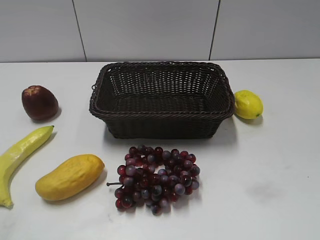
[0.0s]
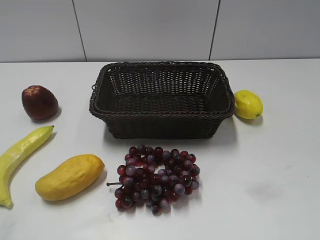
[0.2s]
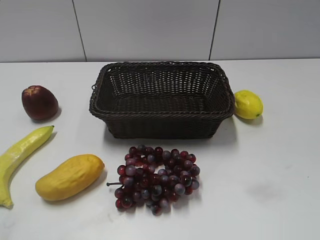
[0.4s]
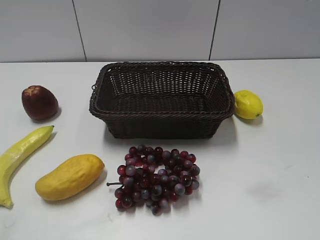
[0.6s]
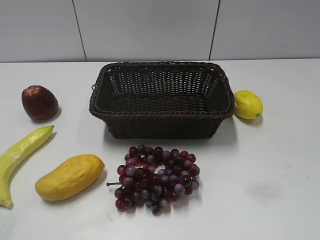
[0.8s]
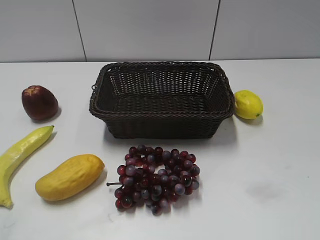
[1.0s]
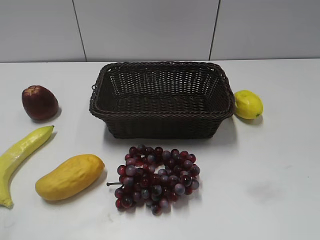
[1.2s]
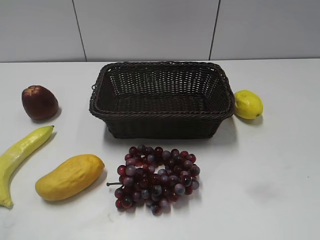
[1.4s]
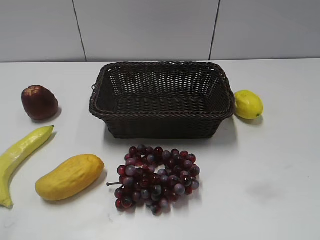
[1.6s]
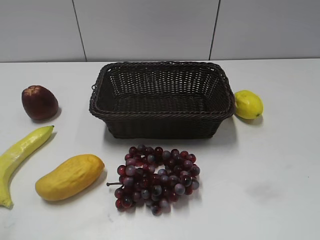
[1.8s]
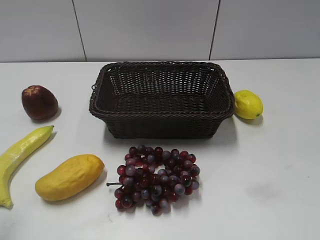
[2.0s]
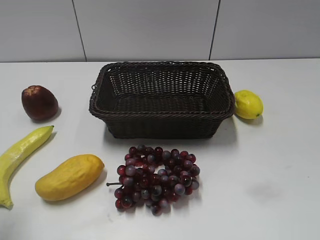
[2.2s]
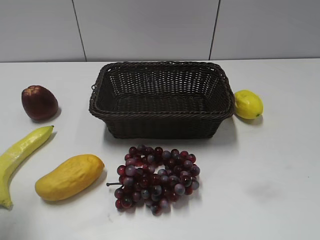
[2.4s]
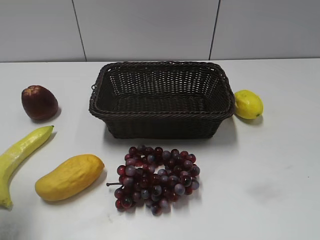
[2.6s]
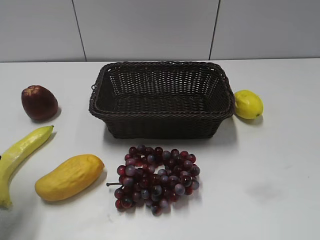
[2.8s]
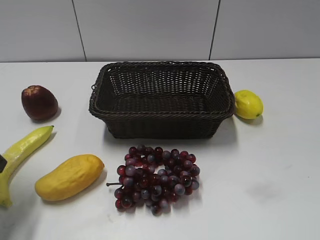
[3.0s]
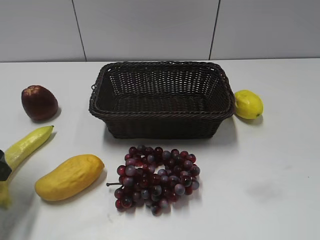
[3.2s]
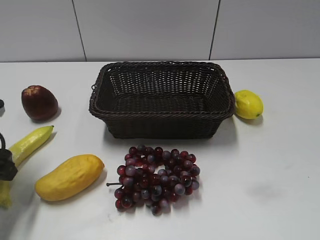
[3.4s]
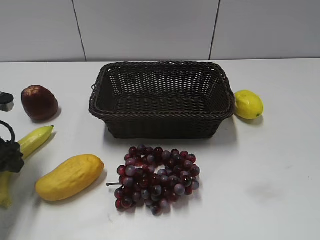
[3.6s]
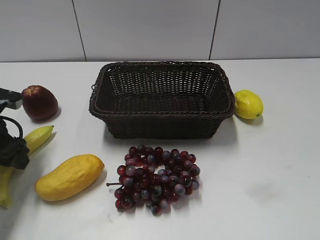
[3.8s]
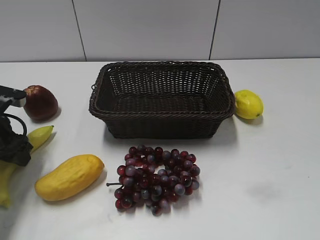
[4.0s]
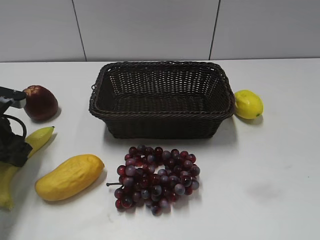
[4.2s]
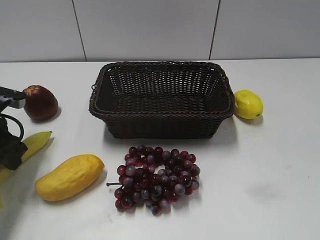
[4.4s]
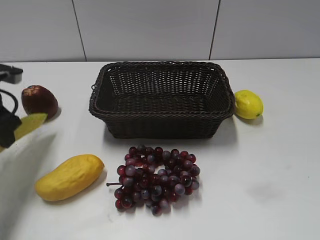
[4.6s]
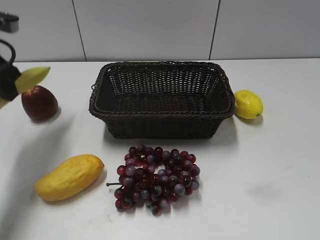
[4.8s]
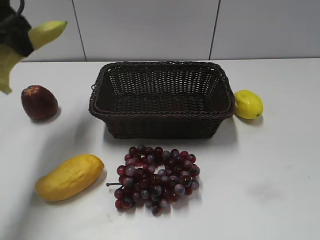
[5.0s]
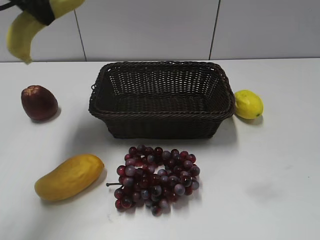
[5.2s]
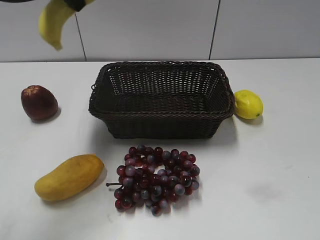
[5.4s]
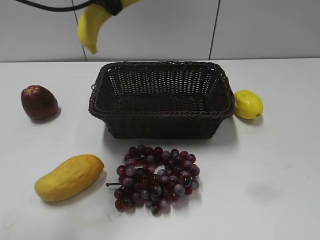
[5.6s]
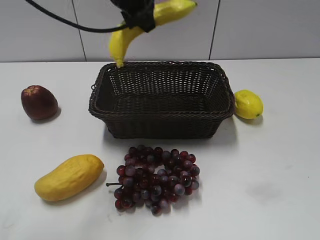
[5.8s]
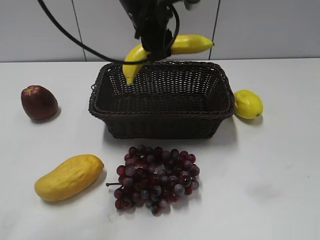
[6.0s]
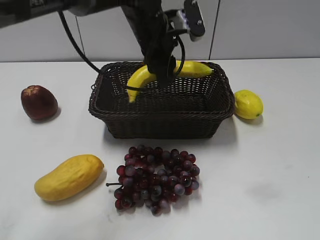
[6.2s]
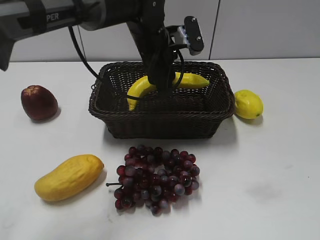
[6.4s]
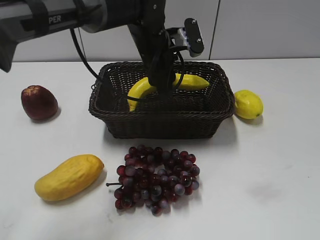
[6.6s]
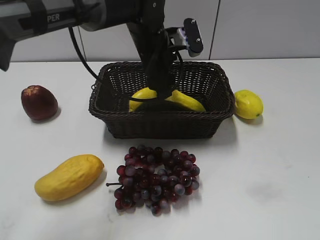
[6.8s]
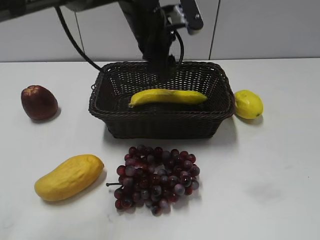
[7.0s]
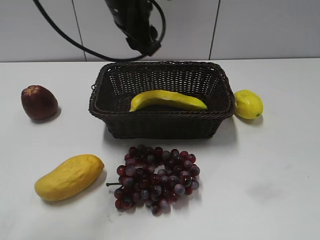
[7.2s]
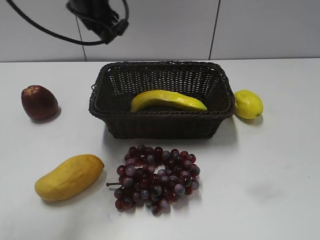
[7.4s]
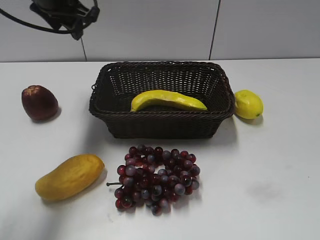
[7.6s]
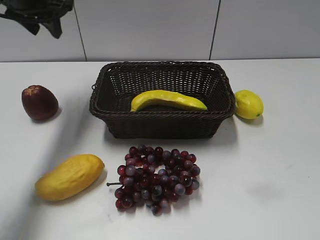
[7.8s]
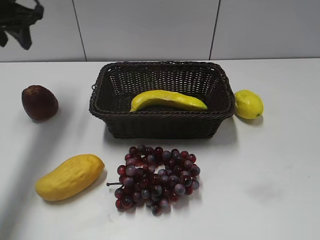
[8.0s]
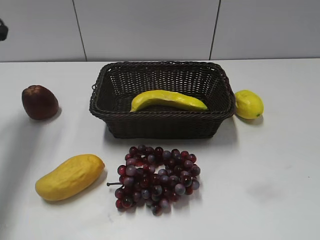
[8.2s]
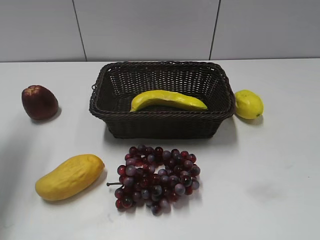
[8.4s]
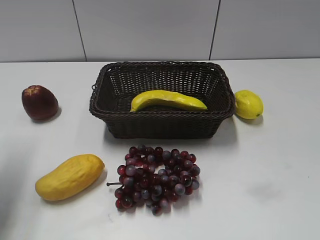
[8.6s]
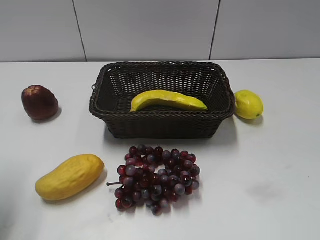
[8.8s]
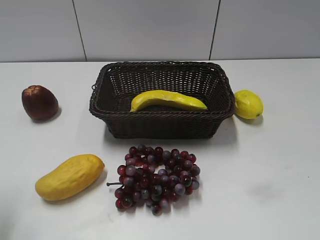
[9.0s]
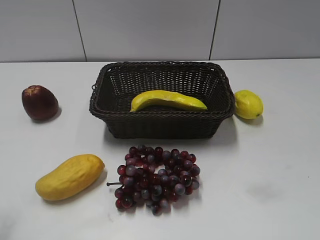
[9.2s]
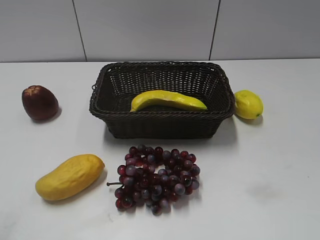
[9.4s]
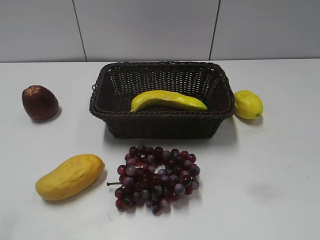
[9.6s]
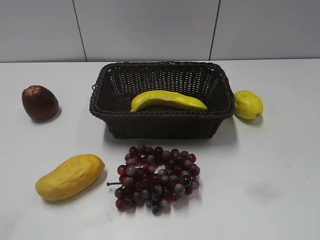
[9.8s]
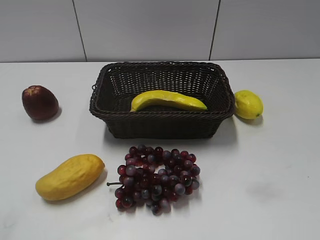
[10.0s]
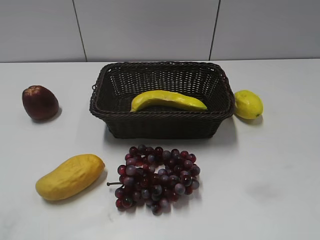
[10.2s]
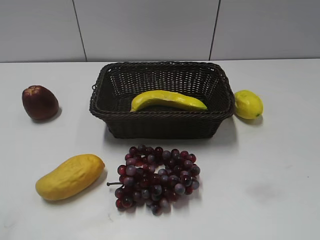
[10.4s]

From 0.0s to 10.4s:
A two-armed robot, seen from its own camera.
Step, from 2.8s to 4.2s: Grasp the banana with left gripper.
Step, from 4.4s to 6.8s: Place the banana in the basket with left gripper.
From 1.4s to 3.0s: The left gripper travels forward and downward by about 25 cm, and opens.
From 3.0s to 4.4s: The left gripper travels forward by roughly 10 cm, and closes up.
From 4.4s to 6.0s: The left gripper heads to the right, covering approximately 30 cm.
From 6.0s to 7.4s: The left gripper travels to the left by about 15 cm, and opens its fingers.
From 7.4s to 9.0s: The left gripper travels backward and to the left by roughly 35 cm.
